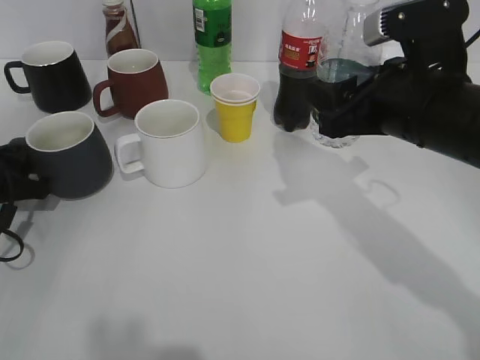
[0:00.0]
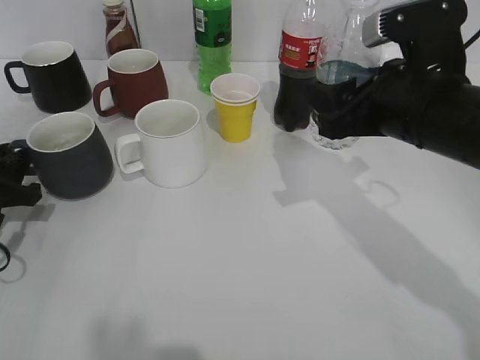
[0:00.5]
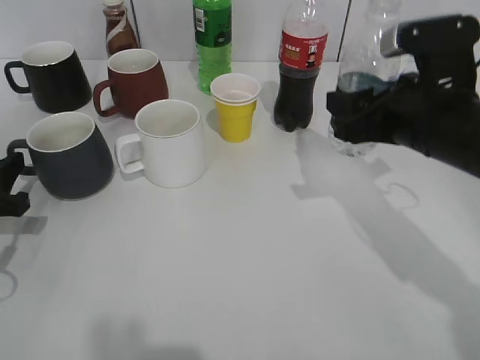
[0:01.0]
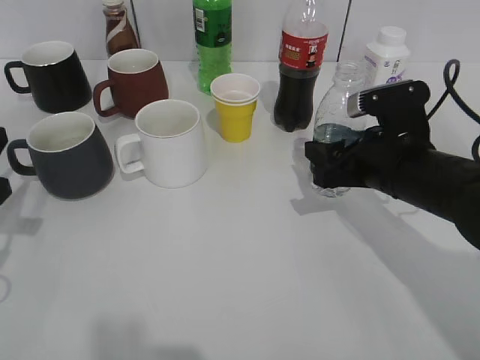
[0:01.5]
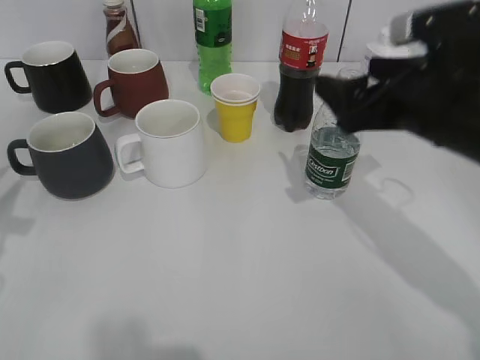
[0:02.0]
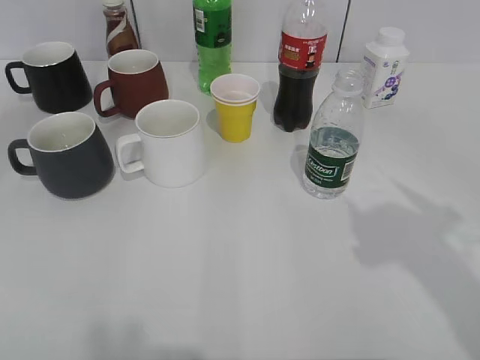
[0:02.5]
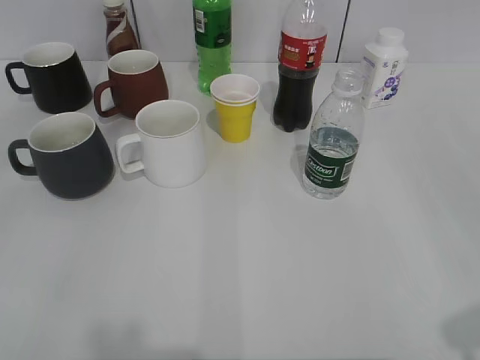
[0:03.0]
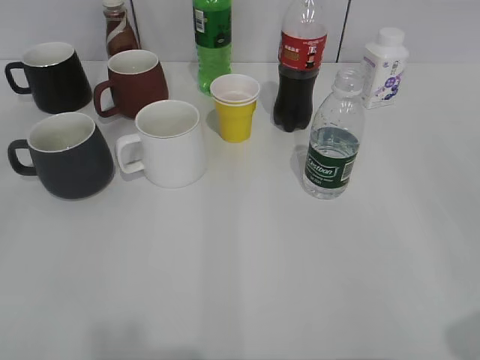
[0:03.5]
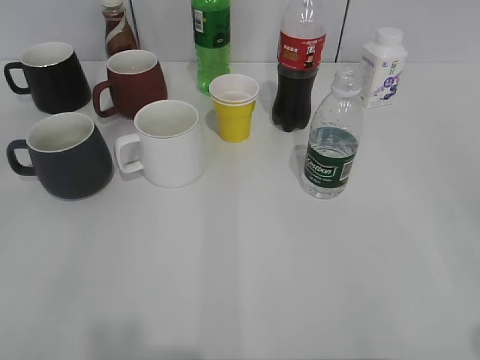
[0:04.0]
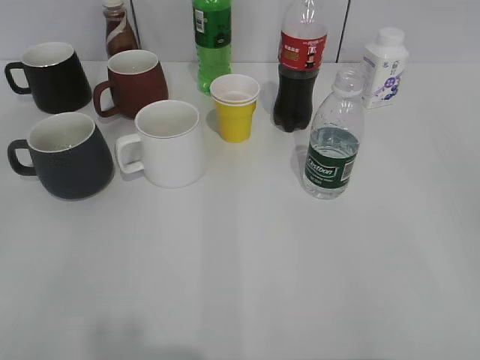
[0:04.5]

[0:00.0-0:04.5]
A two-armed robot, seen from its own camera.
Step, 0:01.0 to 0:01.5: Place the water bottle on the table with right gripper.
0:00.0 to 0:02.0: The right gripper reaches about 10 cm downward, then returns, and opens. Meanwhile the left gripper is displaced upward and backward by approximately 15 cm.
0:02.0 to 0:04.5: The left gripper moves backward, some 20 cm; the right gripper shifts approximately 30 cm backward and to the right, and closes.

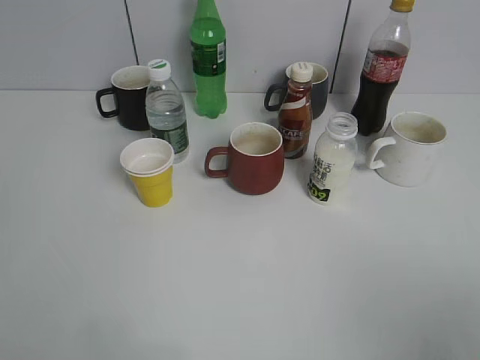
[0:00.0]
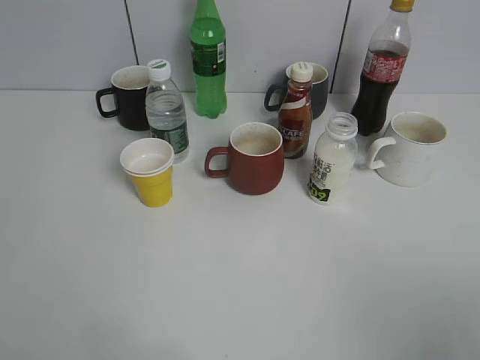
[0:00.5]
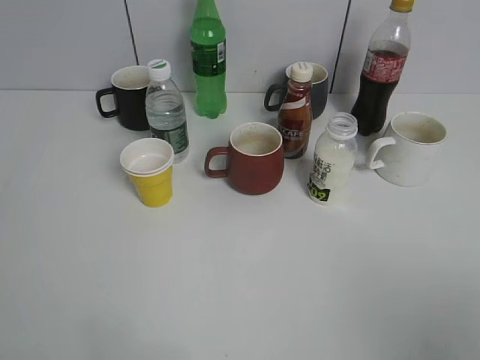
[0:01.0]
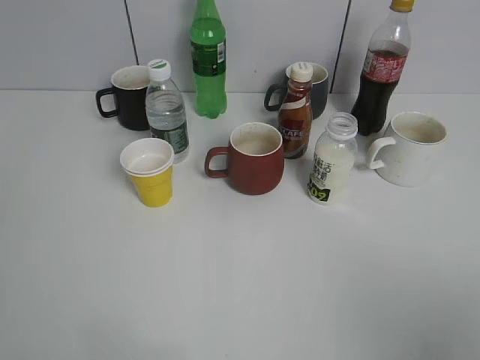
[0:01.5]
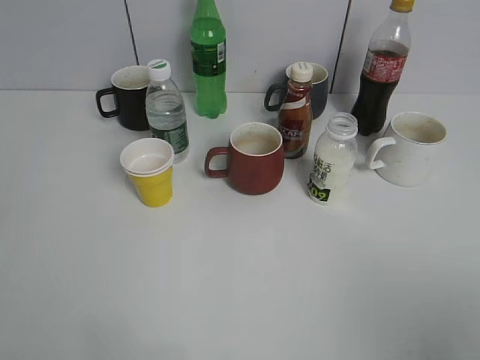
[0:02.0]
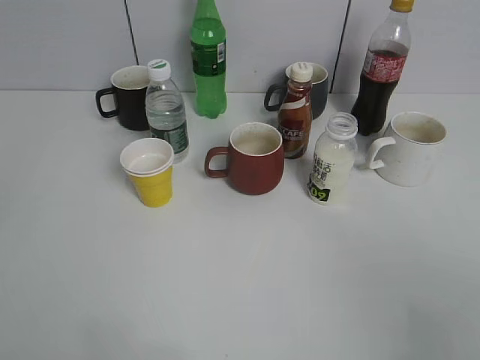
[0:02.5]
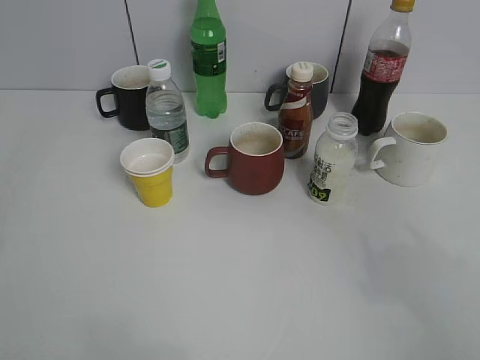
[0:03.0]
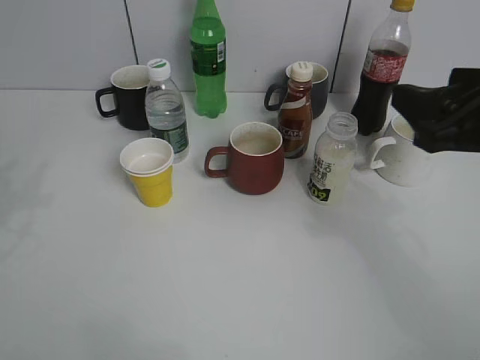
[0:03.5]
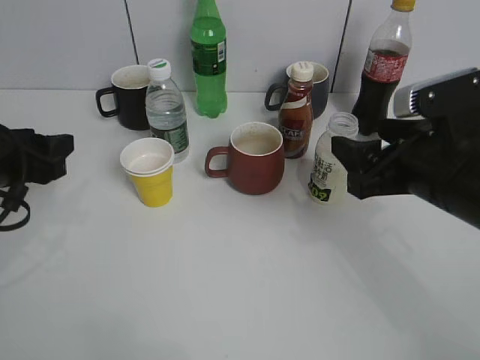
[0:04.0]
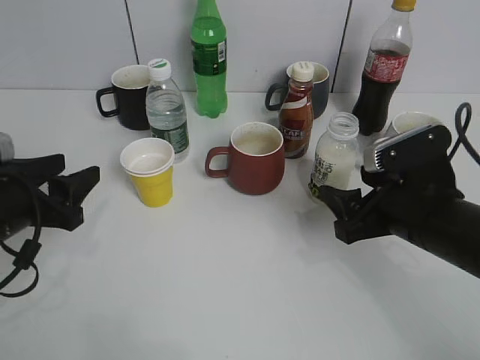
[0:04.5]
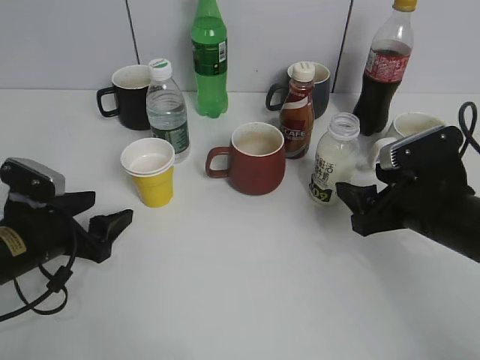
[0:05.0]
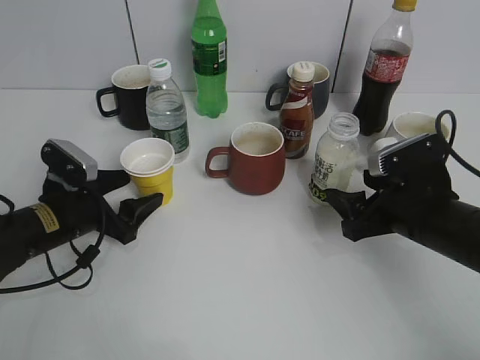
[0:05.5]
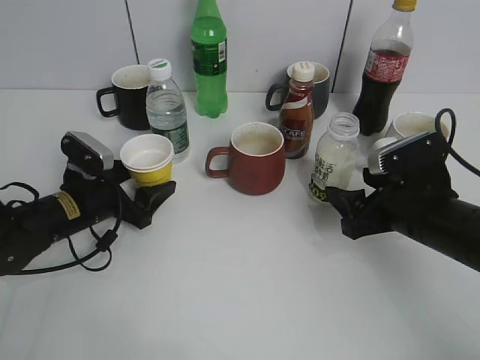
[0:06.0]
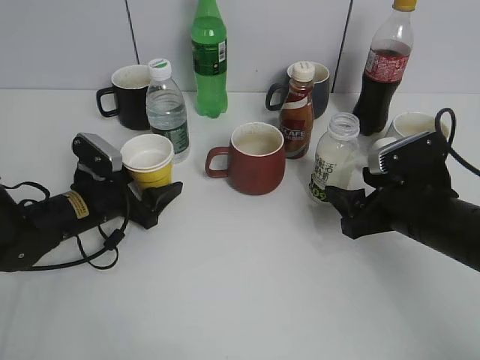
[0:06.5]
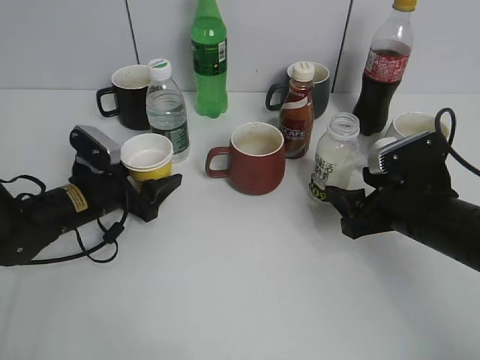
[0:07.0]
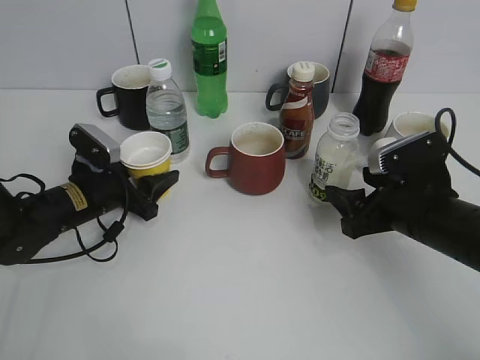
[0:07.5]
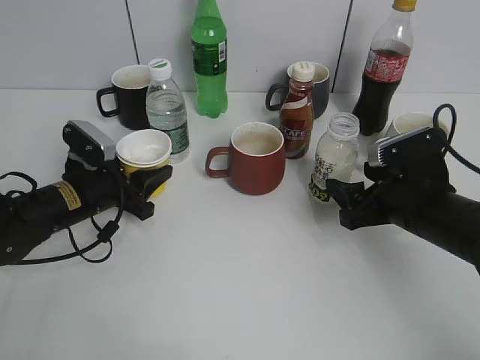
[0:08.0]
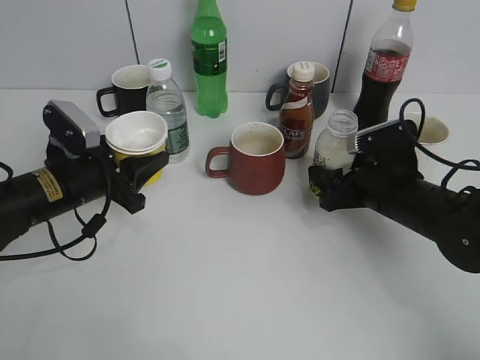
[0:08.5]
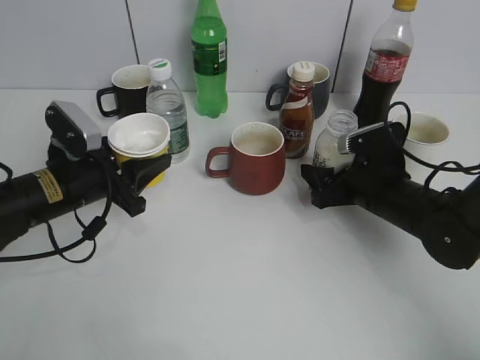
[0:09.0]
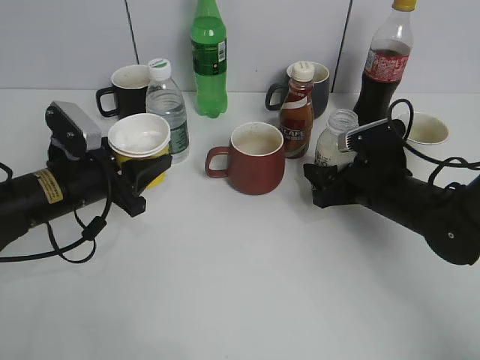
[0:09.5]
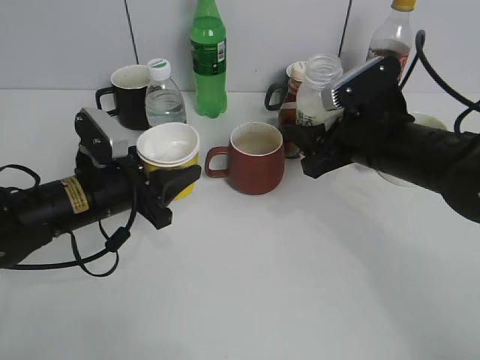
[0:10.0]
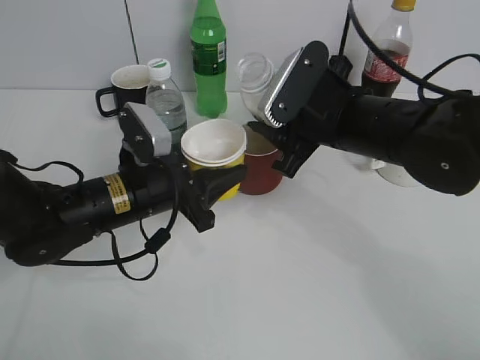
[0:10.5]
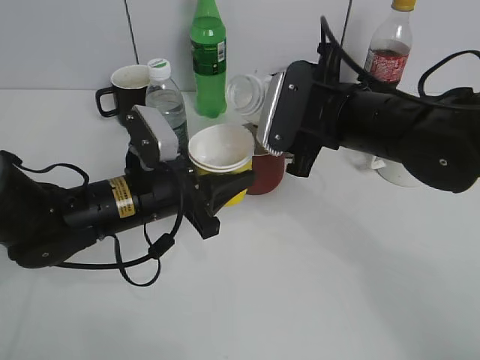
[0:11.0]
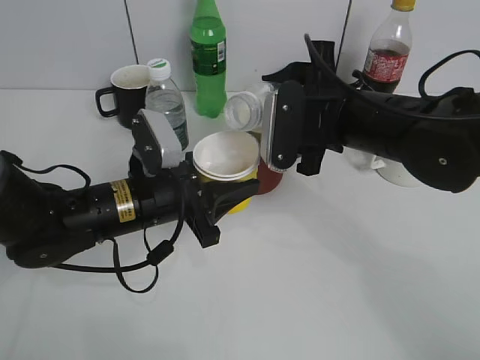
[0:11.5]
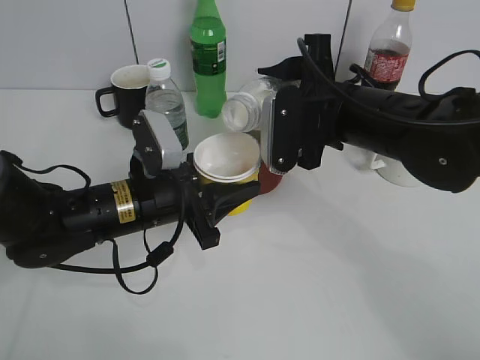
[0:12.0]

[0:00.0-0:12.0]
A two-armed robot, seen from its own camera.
Step, 0:03.5 to 0:07.5: Grasp the yellow paper cup with left gripper.
Step, 0:08.5 to 0:09.0: Grasp the bottle with yuexian Milk with right gripper.
0:02.0 to 0:04.0: The left gripper shifts roughly 30 cm forward and downward, and opens its fingers; the right gripper heads forward and to the left, covering roughly 25 cm.
0:04.0 to 0:06.0: The left gripper goes roughly 15 cm downward, forward and to the right, and opens, while the right gripper travels downward by roughly 10 cm.
0:06.0 to 0:08.0: The left gripper closes up.
0:08.0 to 0:10.0: The left gripper shifts by about 5 cm, while the right gripper is displaced upward by roughly 5 cm.
0:10.0 to 0:12.0: The left gripper heads to the right, covering roughly 5 cm, while the right gripper shifts by roughly 5 cm.

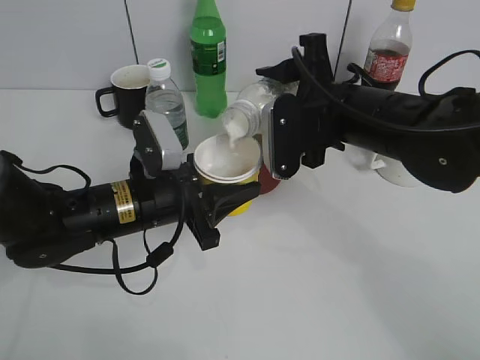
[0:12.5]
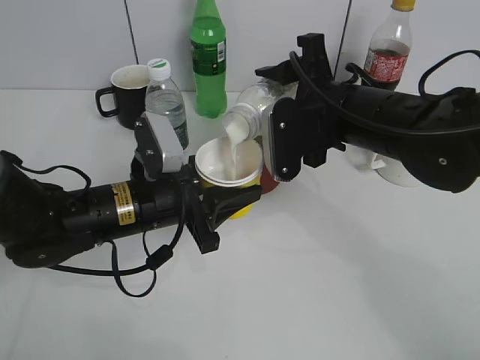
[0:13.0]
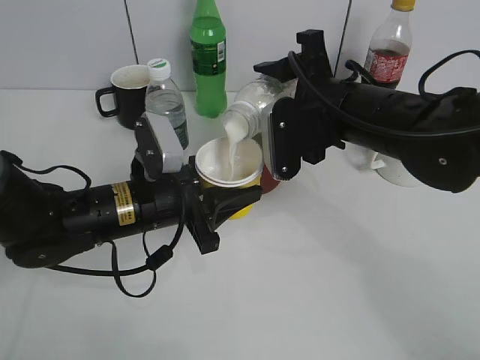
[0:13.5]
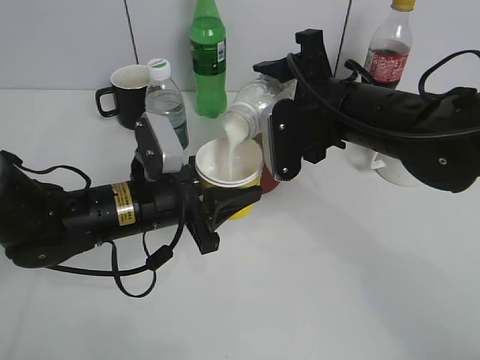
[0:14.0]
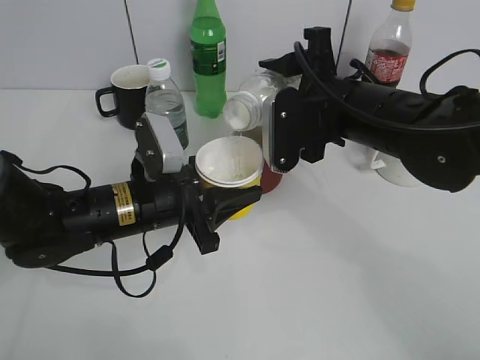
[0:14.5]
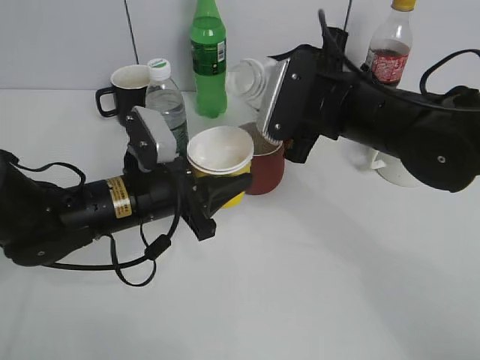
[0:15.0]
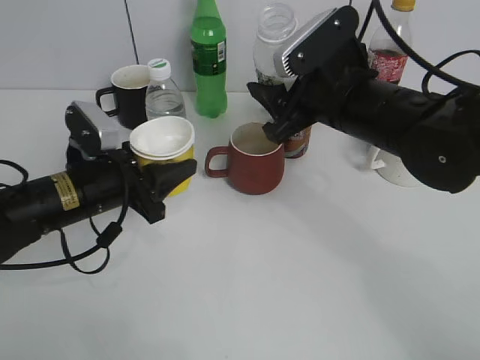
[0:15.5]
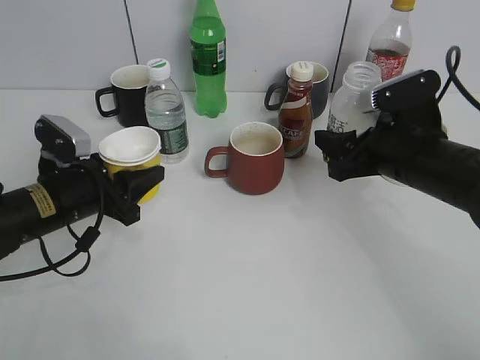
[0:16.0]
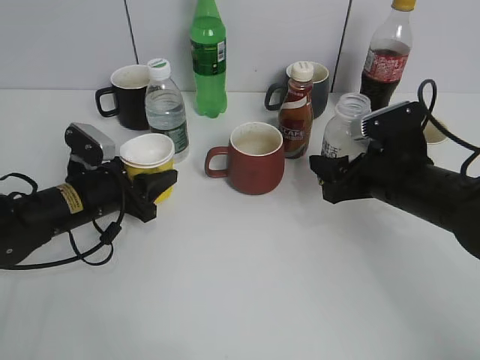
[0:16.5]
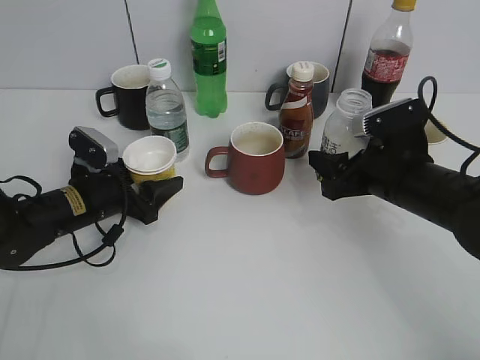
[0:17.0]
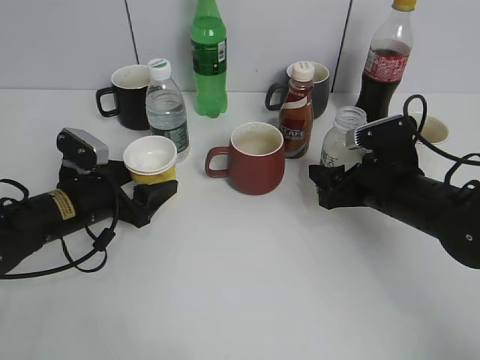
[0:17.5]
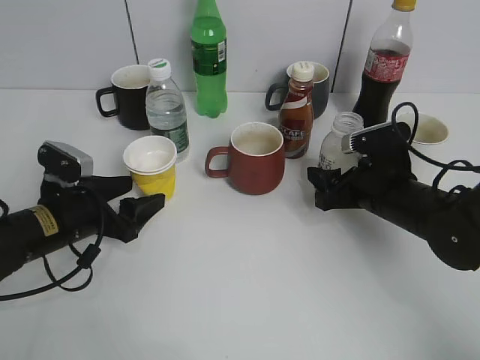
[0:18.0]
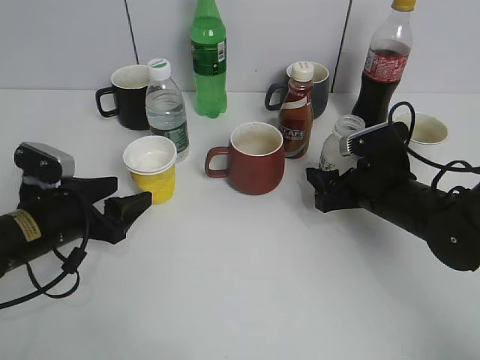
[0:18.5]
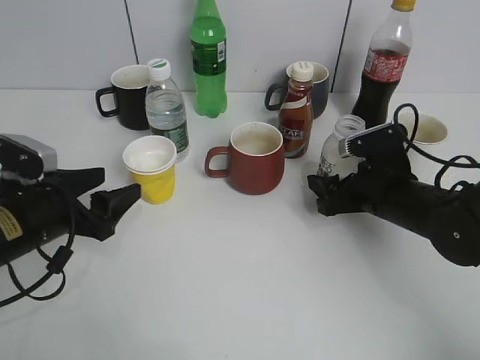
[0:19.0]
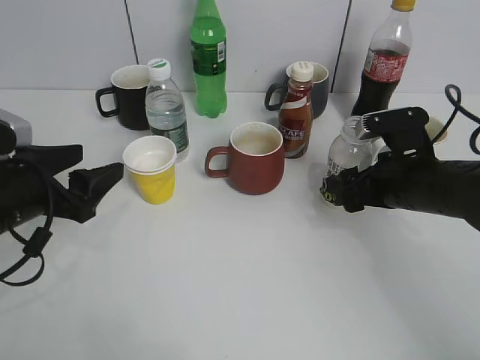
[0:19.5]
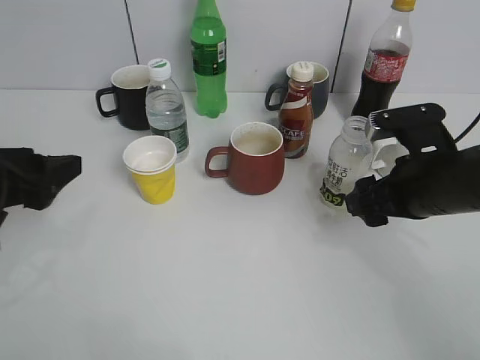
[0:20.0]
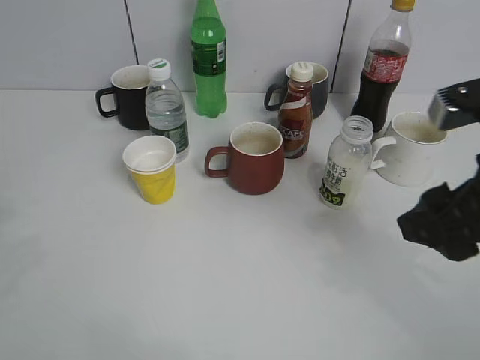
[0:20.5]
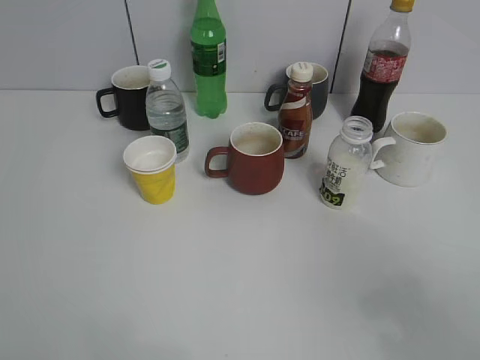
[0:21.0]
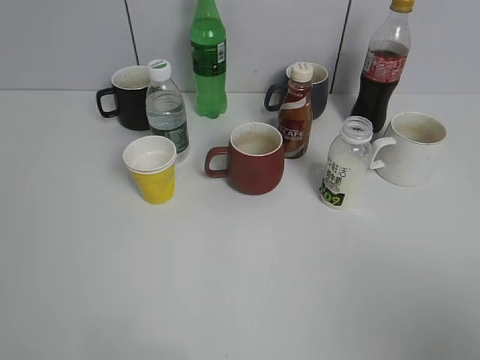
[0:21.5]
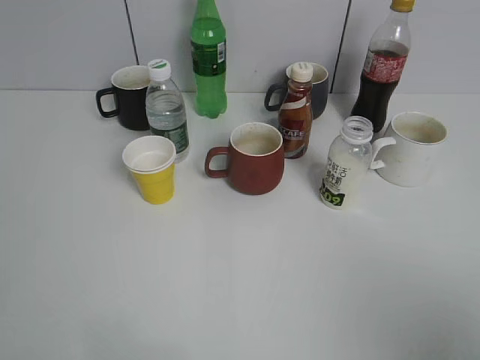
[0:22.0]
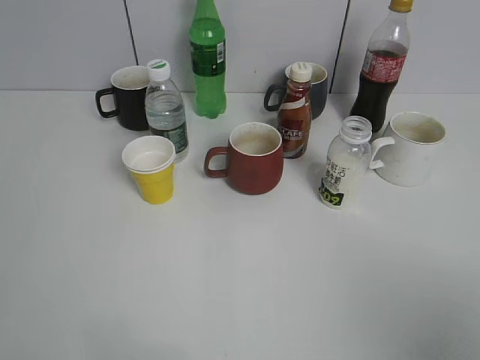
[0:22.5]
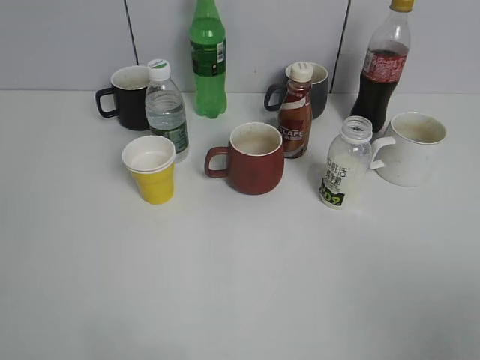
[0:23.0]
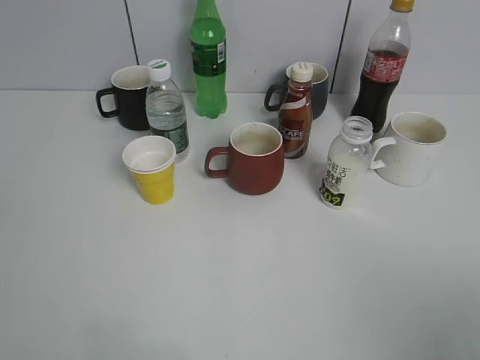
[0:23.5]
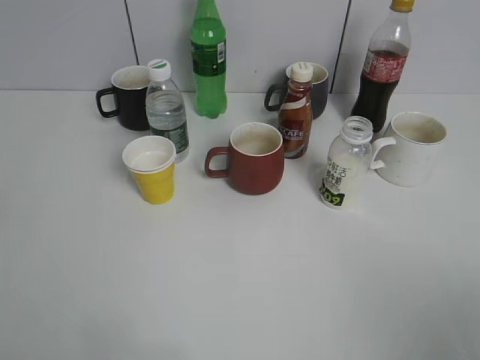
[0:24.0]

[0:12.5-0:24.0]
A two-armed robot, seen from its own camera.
Step, 0:12.5 to 0:14.5: Pour the yuexian Milk from bottle to cup with right gripper.
Step, 0:15.0 to 0:19.5: Place the yuexian Milk bottle on the table with right gripper.
0:12.5 to 0:14.5: The grippers make only small movements.
0:14.5 to 0:16.5: The left gripper goes roughly 10 cm to the left, forward and downward. The right gripper shifts some 10 cm downward and to the right.
0:16.5 to 0:18.5: The left gripper is displaced backward by some 5 cm, and opens its fingers.
0:18.5 to 0:20.0: Both grippers travel together upward, approximately 10 cm.
0:20.0 to 0:22.0: Both grippers move backward and upward, approximately 30 cm.
